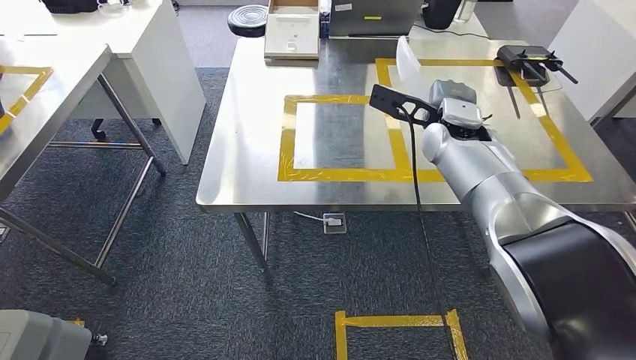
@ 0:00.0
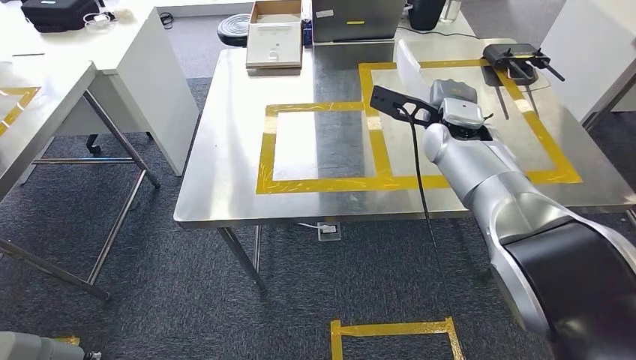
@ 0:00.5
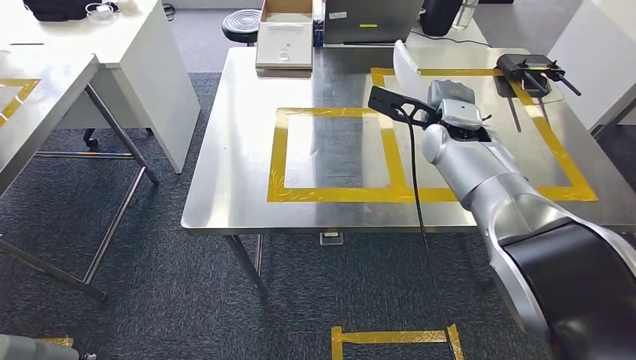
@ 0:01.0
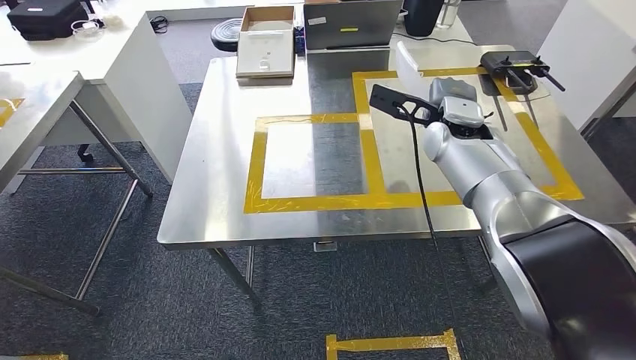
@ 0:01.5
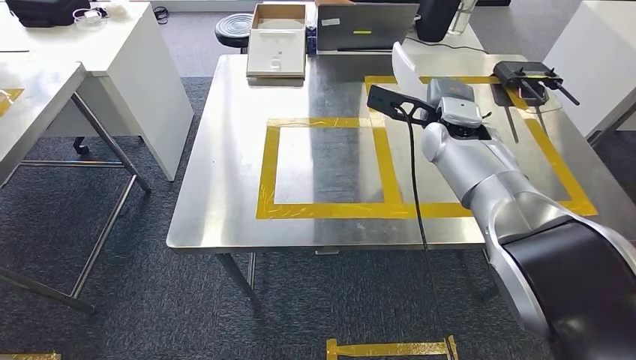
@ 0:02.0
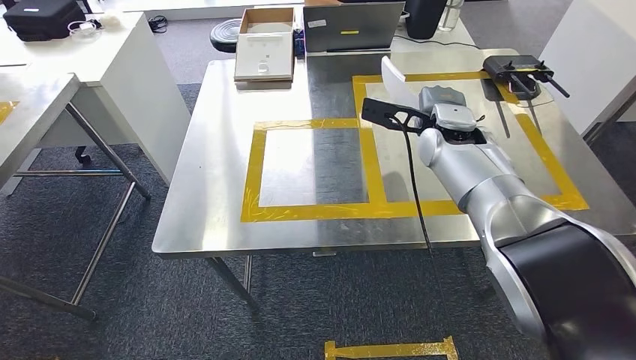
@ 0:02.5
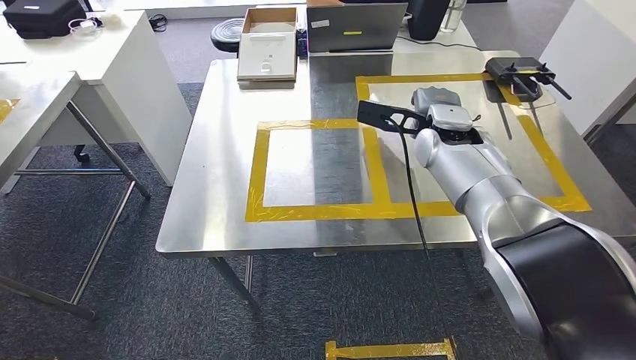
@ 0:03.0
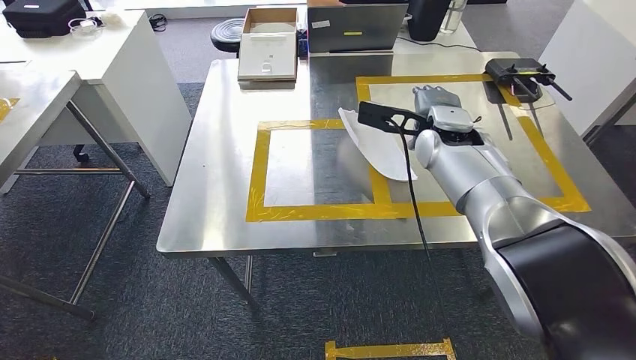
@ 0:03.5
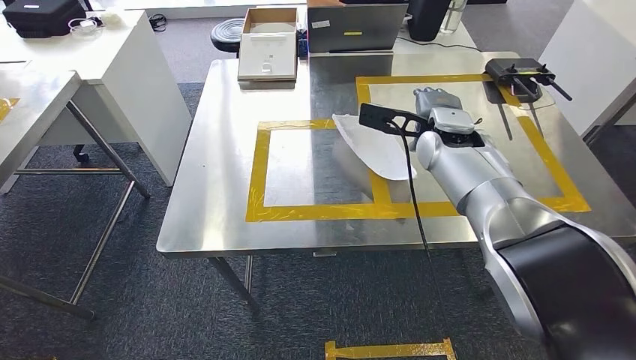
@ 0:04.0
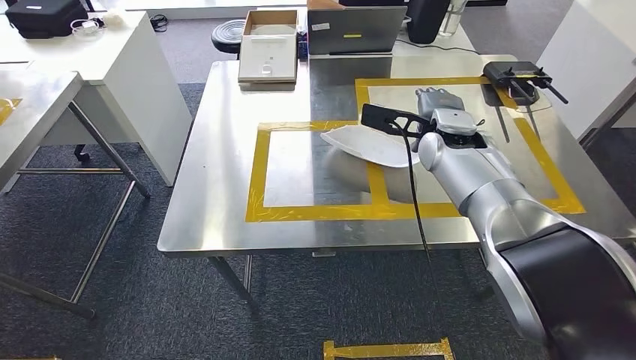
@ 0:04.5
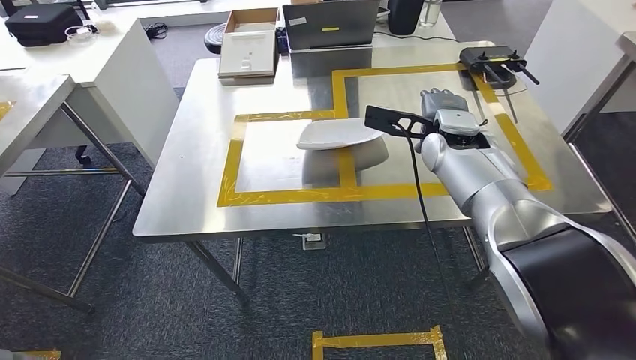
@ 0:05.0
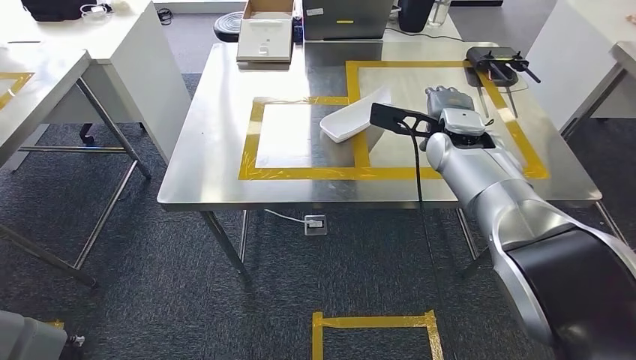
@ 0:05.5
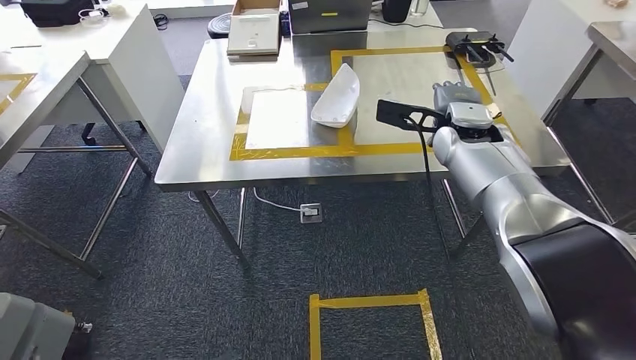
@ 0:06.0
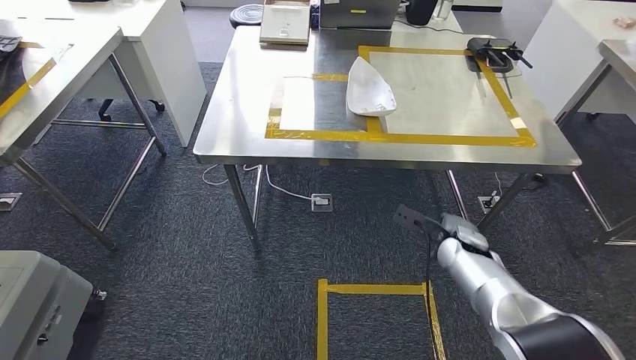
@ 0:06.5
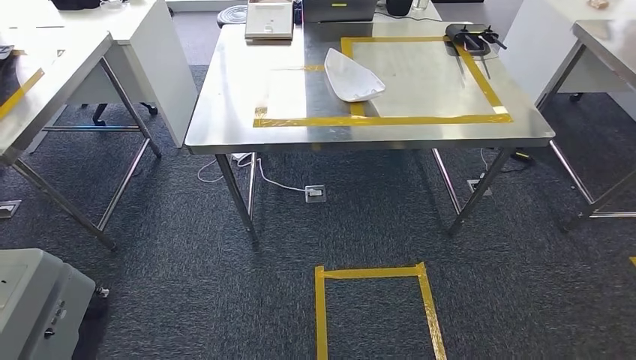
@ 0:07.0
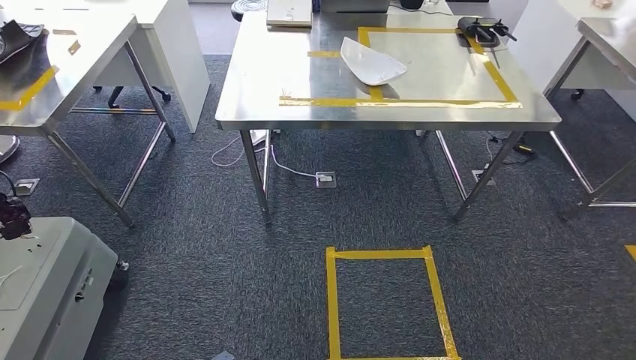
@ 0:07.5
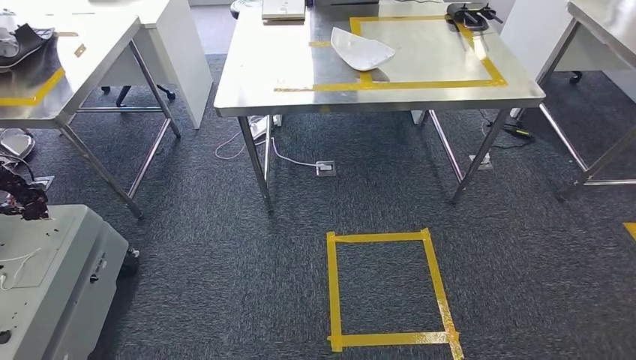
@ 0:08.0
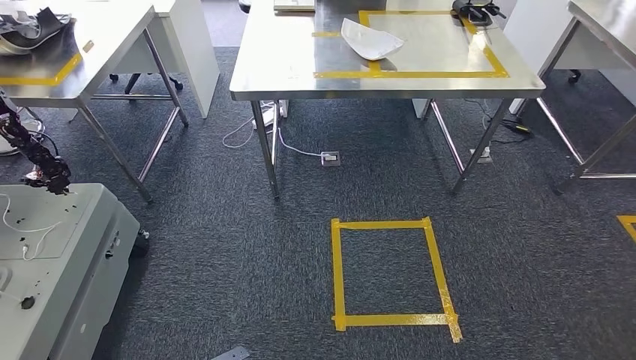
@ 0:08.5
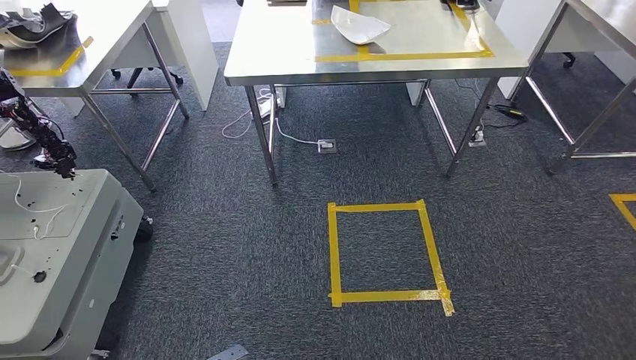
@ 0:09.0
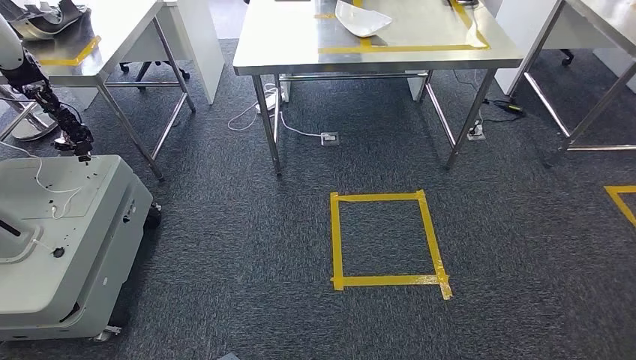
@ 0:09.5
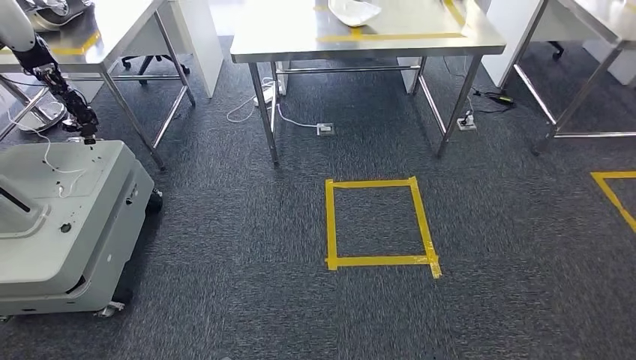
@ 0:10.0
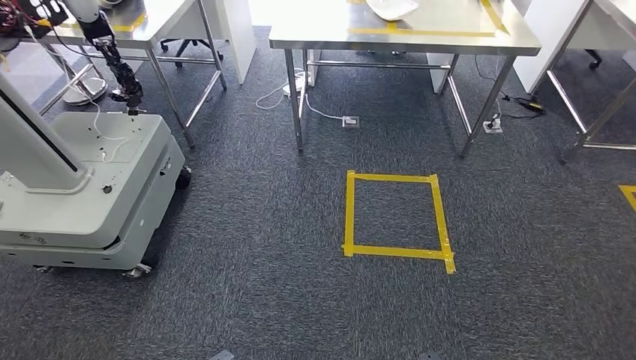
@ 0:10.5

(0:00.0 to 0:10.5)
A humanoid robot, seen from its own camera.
Step, 0:00.0 - 0:05.5: Insert the small component into the corresponding slot on the workbench.
Step, 0:06.0 - 0:10.5: Return to the initial position at the workbench.
